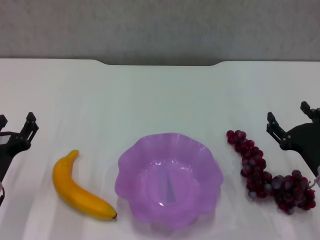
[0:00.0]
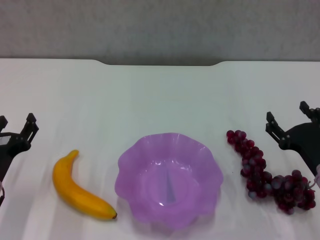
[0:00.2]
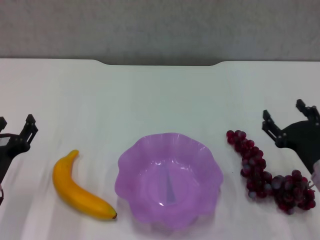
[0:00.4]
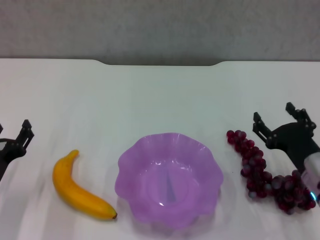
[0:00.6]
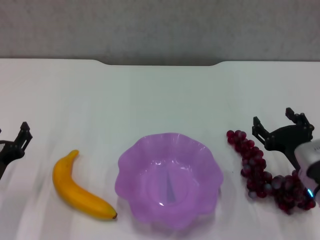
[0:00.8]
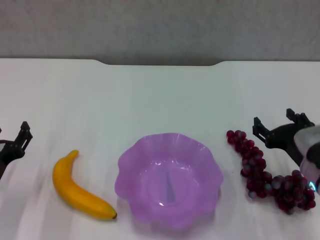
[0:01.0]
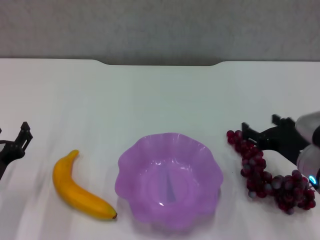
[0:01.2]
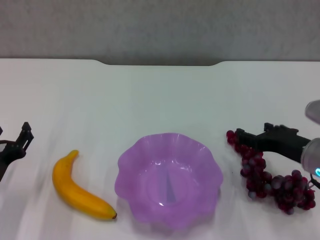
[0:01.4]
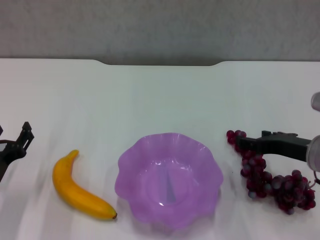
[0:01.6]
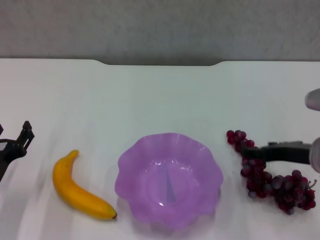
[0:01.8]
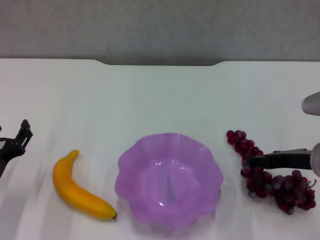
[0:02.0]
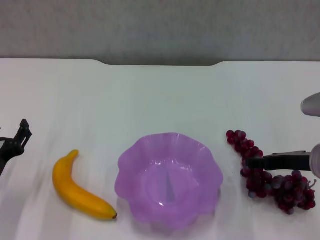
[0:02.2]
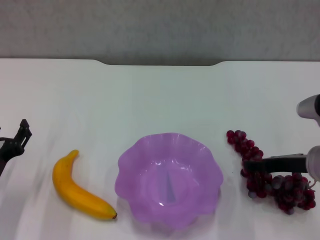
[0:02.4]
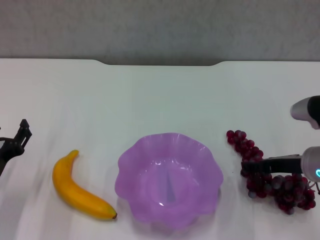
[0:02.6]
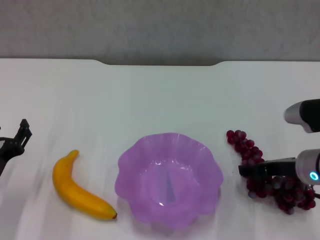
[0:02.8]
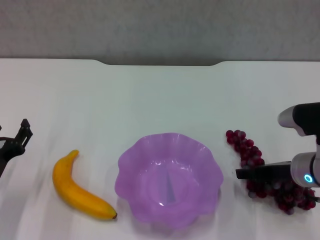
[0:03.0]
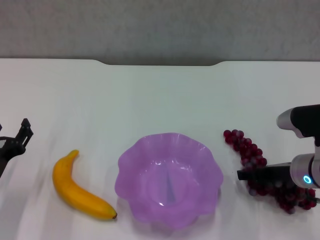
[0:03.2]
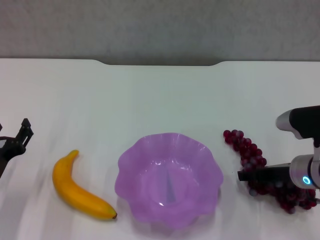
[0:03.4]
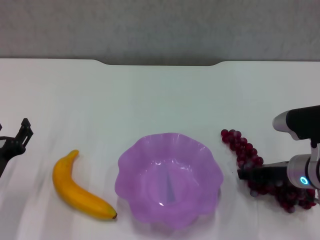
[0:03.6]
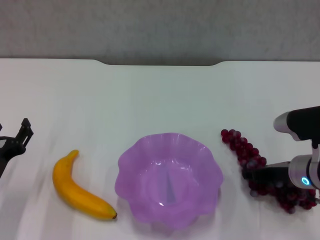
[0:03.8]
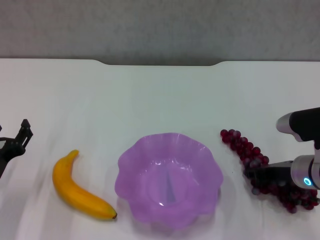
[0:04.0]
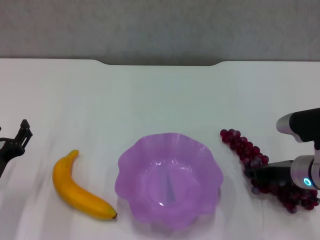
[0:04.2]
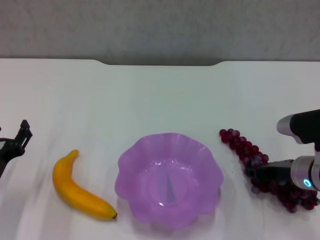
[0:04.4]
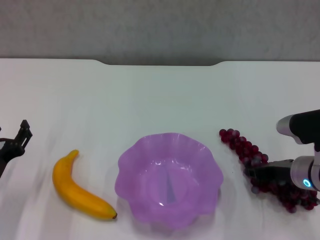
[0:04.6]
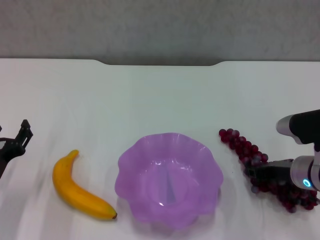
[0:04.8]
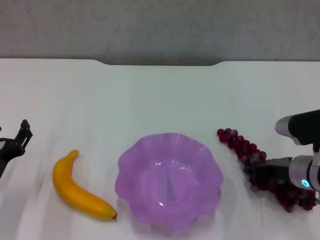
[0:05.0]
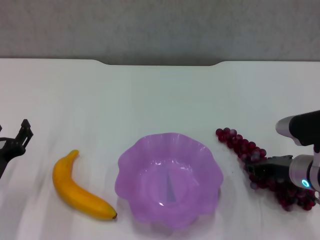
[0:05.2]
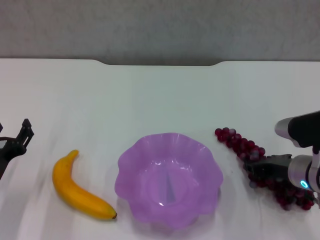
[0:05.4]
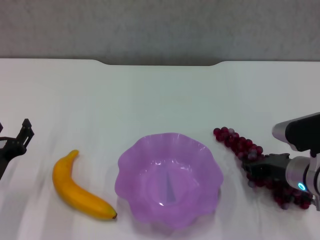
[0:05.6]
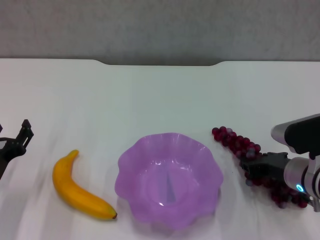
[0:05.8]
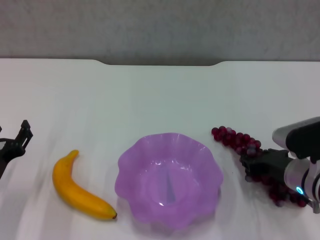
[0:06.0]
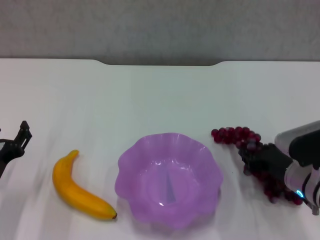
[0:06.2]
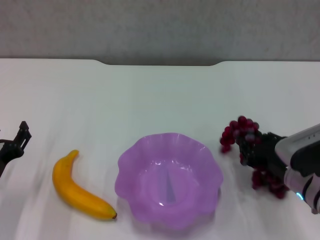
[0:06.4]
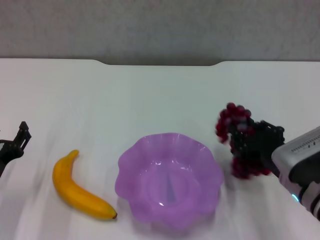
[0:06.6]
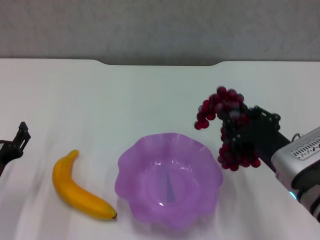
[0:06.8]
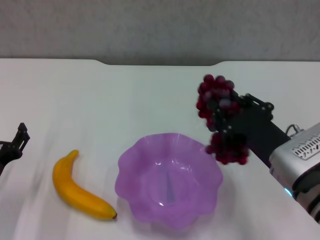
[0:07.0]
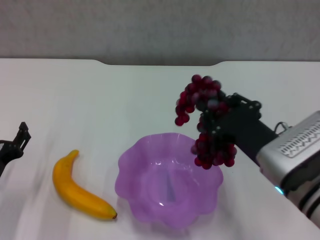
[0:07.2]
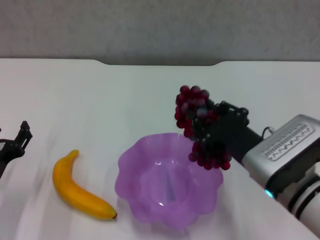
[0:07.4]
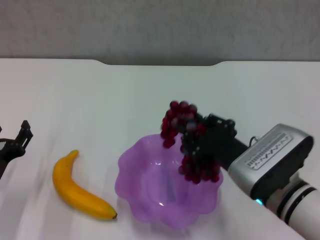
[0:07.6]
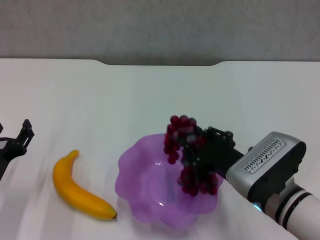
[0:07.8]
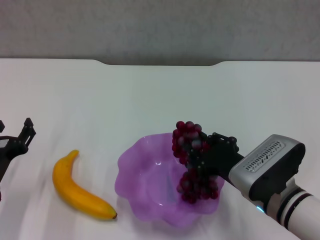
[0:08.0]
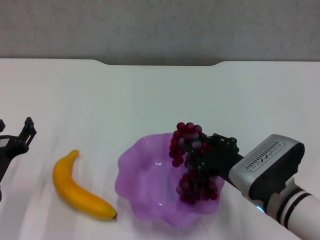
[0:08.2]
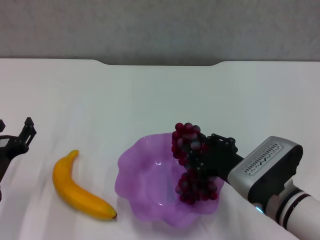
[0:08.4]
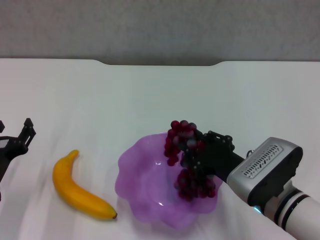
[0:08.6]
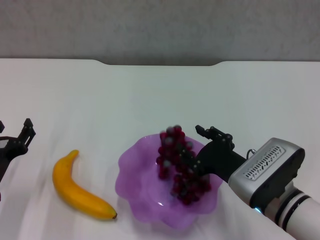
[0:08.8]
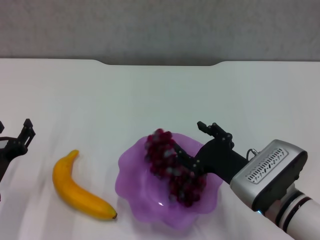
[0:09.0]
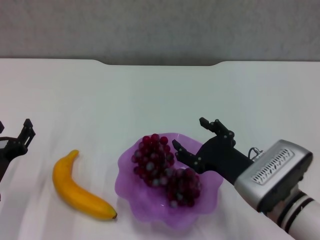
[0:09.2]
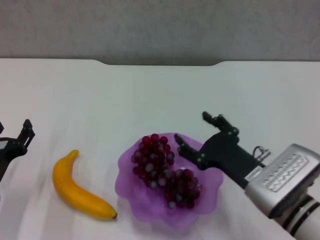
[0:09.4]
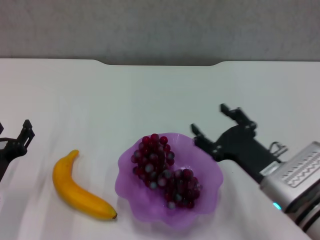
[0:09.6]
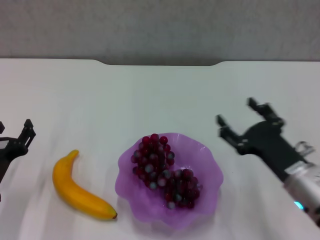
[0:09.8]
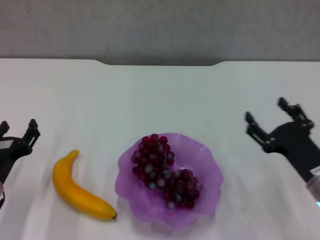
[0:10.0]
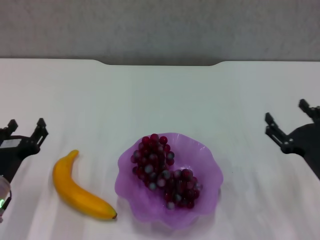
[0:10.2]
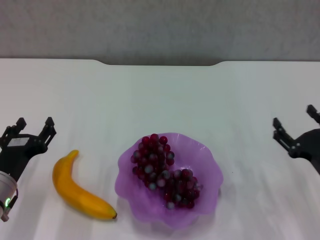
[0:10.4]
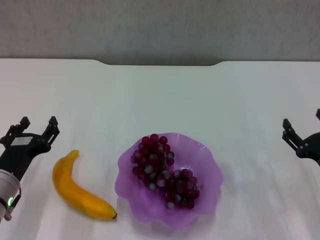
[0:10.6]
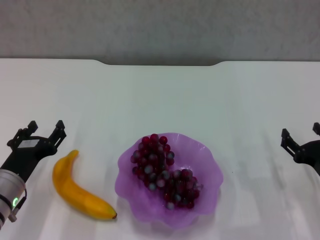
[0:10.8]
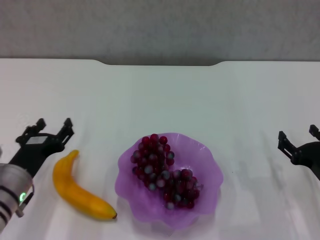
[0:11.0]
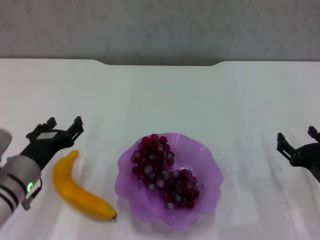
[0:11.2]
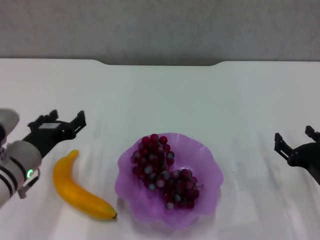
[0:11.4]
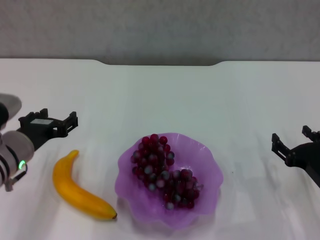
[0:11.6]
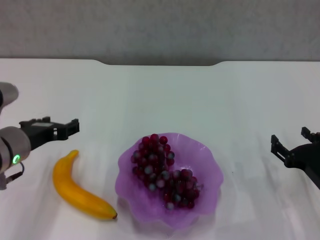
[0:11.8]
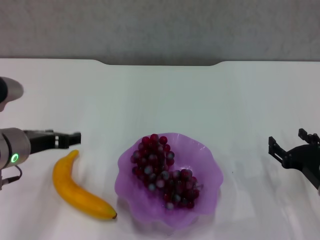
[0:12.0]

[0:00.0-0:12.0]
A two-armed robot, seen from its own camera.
Step, 0:00.0 to 0:04.2: Grasp the grape with right gripper.
Step, 0:04.4 to 0:09.4: Place the grape in the purple plate with right gripper.
0:00.0 to 0:01.6: The right gripper heads upward, covering approximately 10 cm.
0:01.6 to 0:03.0: There are only small adjustments of the grippers.
0:03.0 to 0:04.4: The right gripper closes.
0:04.4 to 0:06.0: The grippers move only a little.
0:06.0 to 0:07.6: The right gripper moves to the left, approximately 10 cm.
0:07.6 to 0:09.0: The right gripper opens up.
0:09.0 to 0:10.4: The right gripper travels to the right by approximately 15 cm, and opens its fingers.
0:10.4 to 0:12.0: The left gripper travels upward by approximately 10 cm.

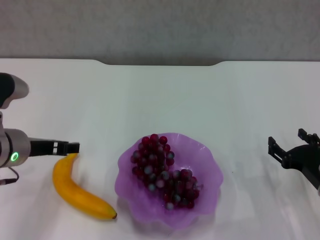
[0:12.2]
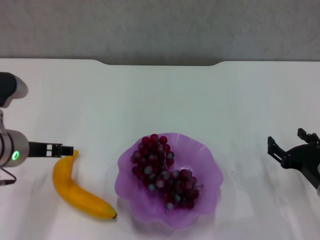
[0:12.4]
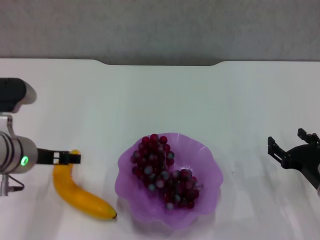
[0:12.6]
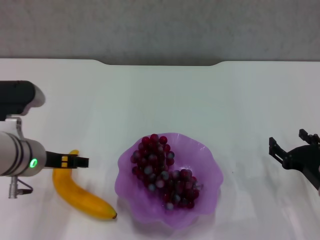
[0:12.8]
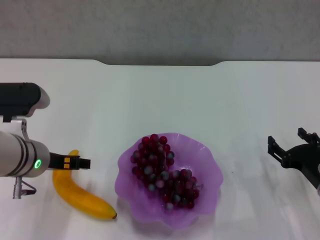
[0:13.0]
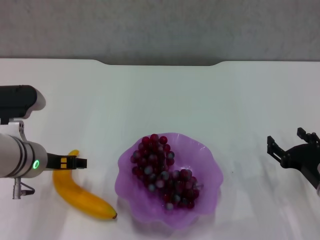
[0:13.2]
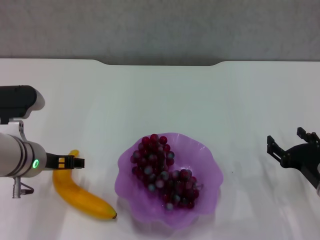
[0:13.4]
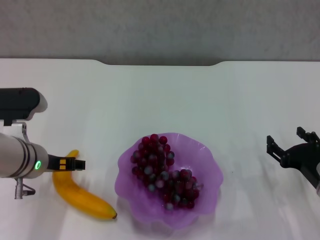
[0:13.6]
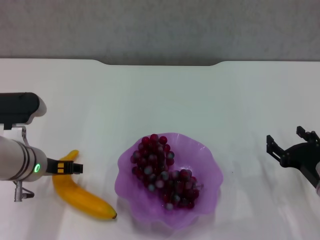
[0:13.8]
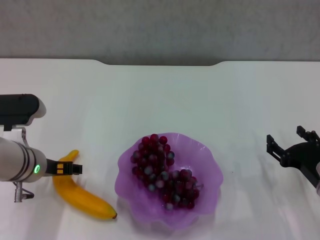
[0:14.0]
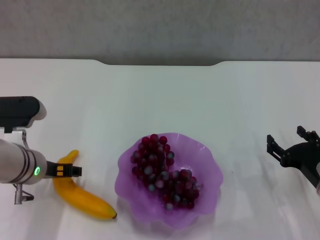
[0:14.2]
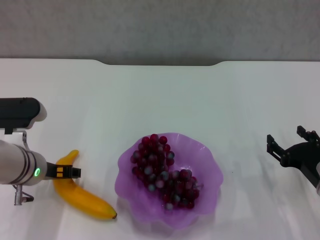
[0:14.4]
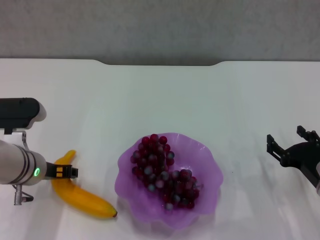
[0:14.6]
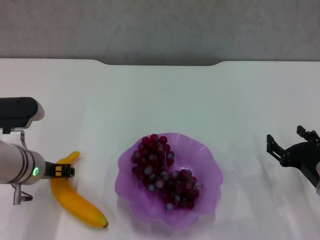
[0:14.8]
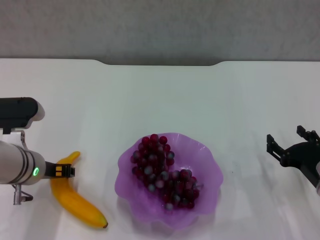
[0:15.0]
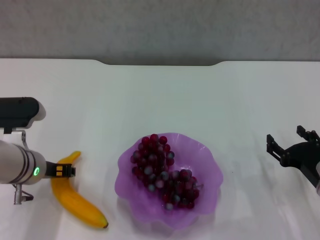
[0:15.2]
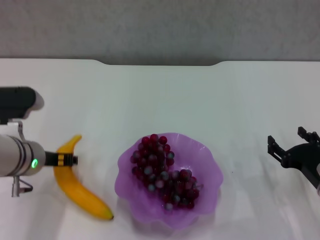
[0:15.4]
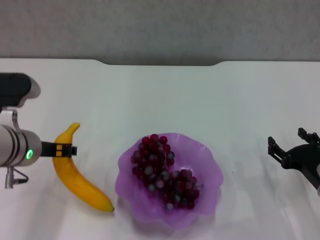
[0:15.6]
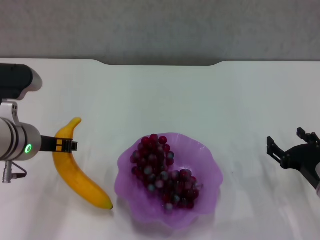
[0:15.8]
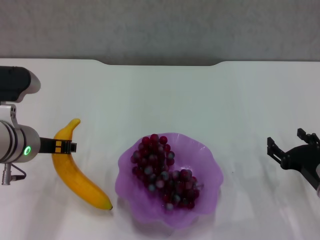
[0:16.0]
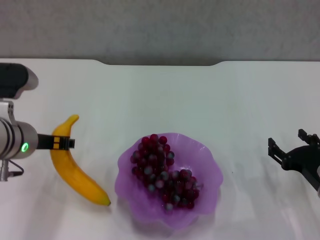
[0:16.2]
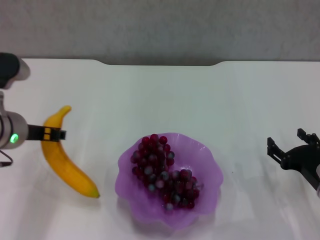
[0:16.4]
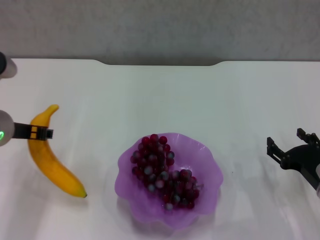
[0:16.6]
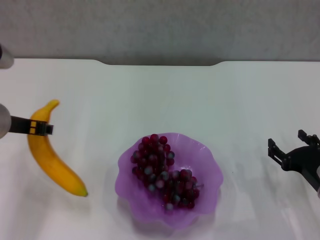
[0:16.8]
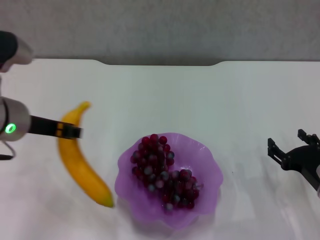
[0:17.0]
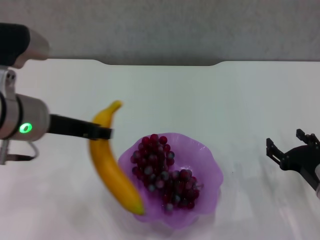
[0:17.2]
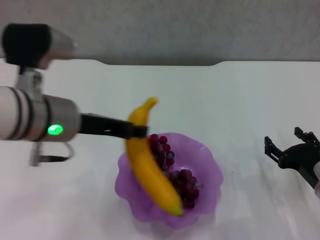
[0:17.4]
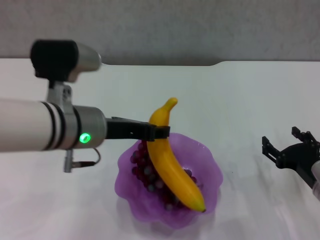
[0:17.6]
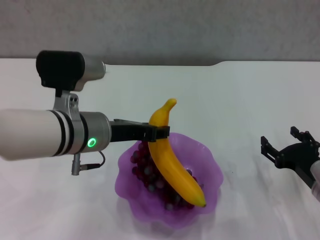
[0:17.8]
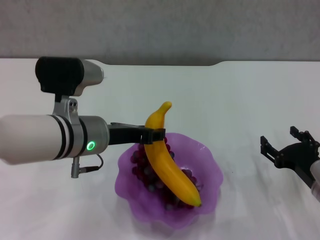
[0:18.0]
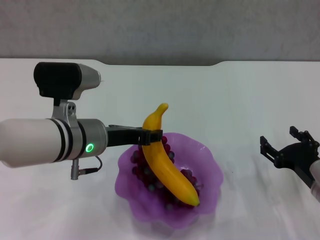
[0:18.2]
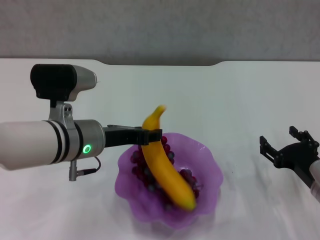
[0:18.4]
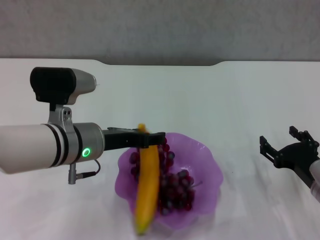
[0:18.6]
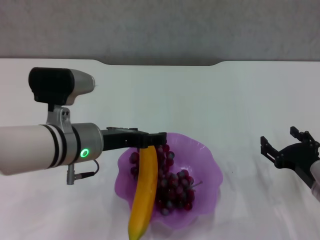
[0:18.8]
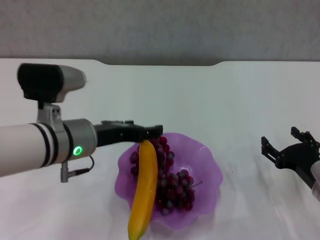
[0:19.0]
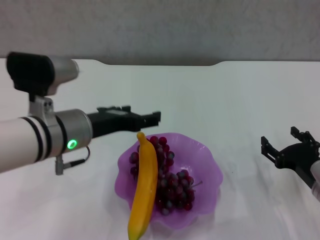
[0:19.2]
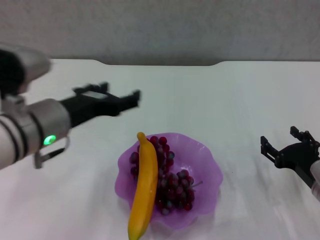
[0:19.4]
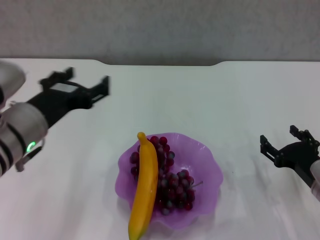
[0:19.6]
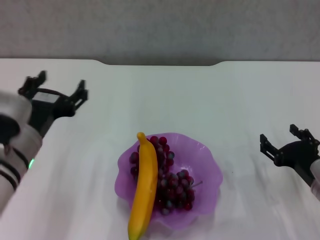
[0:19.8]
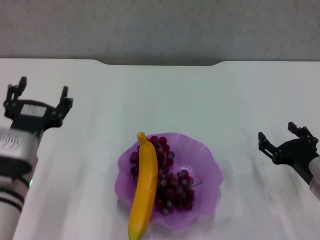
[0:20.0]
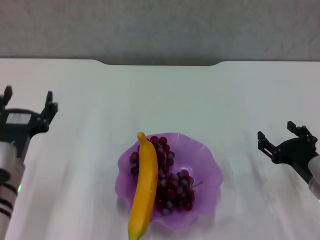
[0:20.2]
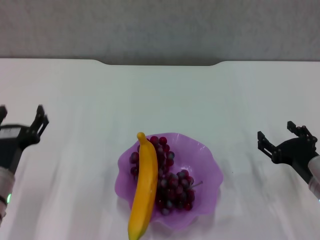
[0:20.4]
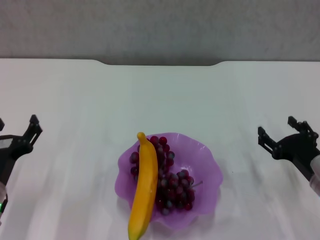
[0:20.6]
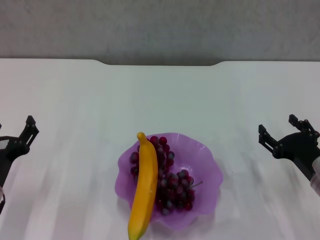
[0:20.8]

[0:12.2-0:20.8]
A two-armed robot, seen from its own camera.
Step, 0:12.2 to 0:15.0: Grasp the banana with left gripper.
Step, 0:15.2 to 0:19.2: Place the banana in the purple plate with left gripper.
0:12.2 to 0:13.6: The grippers make only small movements.
0:13.6 to 0:15.0: The left gripper closes up.
0:15.0 to 0:16.6: The left gripper travels upward by roughly 10 cm.
0:16.6 to 0:18.0: The left gripper shifts approximately 10 cm to the right.
0:18.0 to 0:19.4: The left gripper changes place by about 5 cm, and opens.
0:19.4 to 0:20.8: The left gripper travels downward and to the left by about 15 cm.
